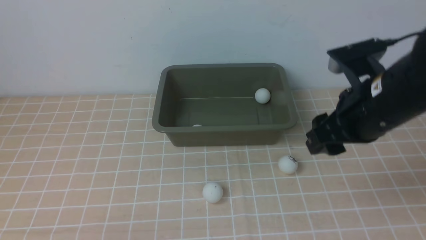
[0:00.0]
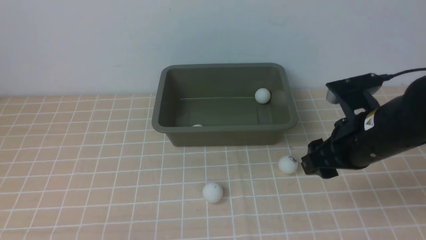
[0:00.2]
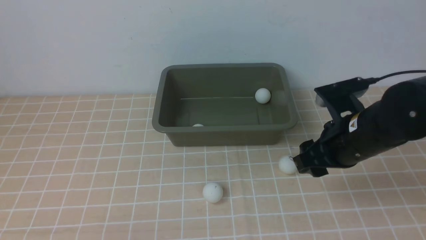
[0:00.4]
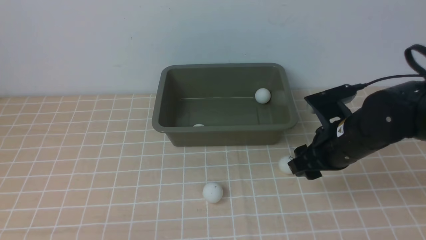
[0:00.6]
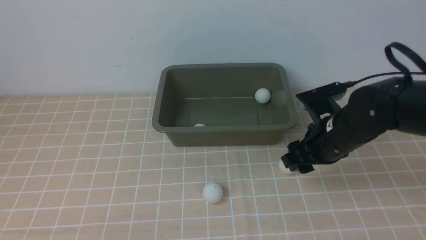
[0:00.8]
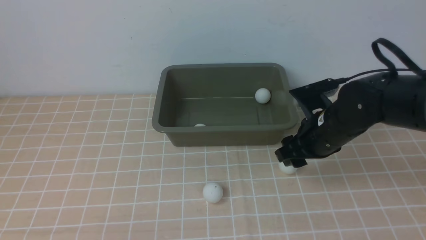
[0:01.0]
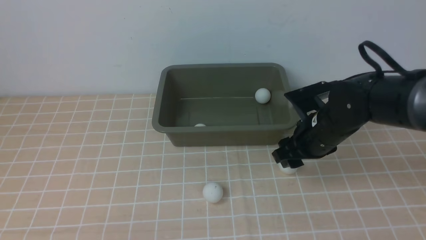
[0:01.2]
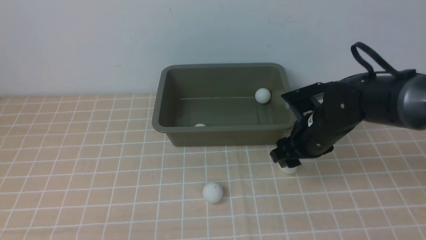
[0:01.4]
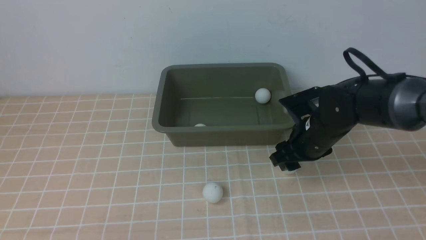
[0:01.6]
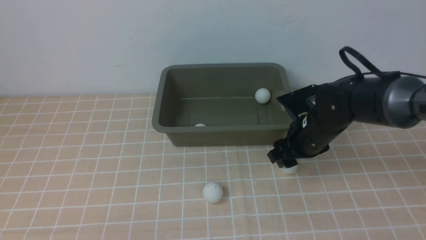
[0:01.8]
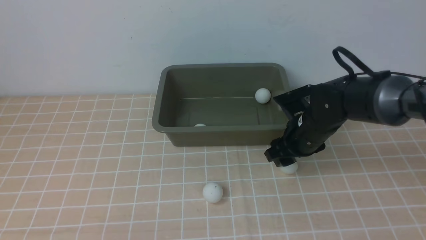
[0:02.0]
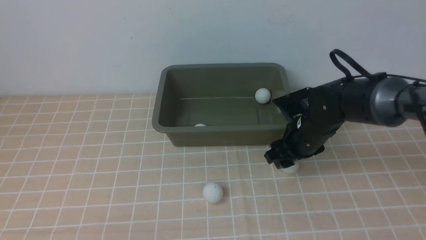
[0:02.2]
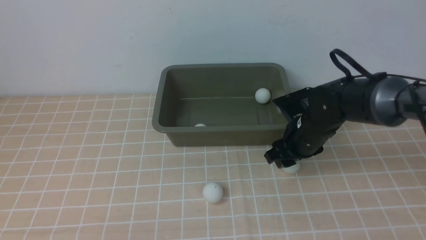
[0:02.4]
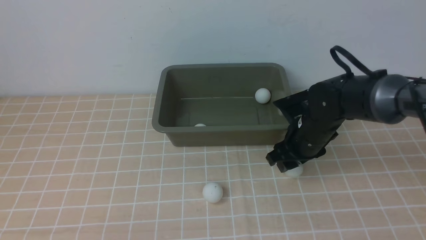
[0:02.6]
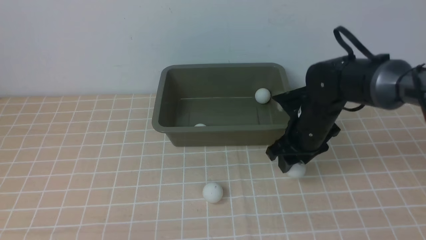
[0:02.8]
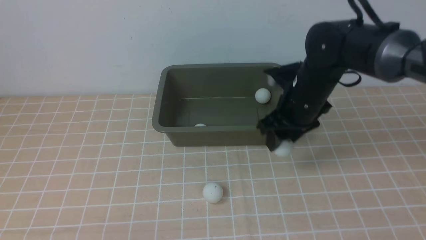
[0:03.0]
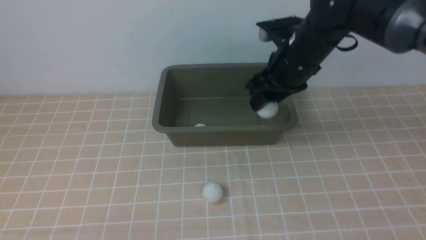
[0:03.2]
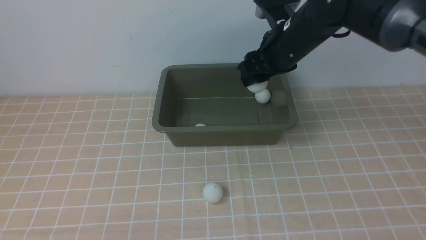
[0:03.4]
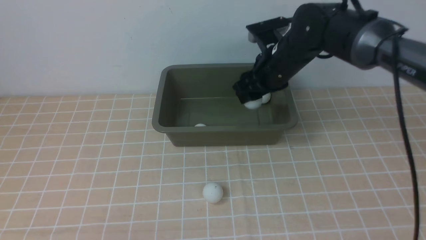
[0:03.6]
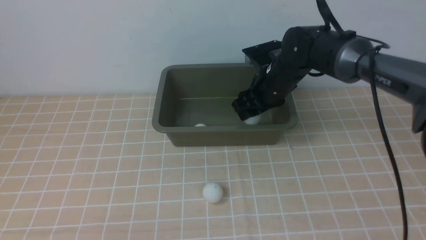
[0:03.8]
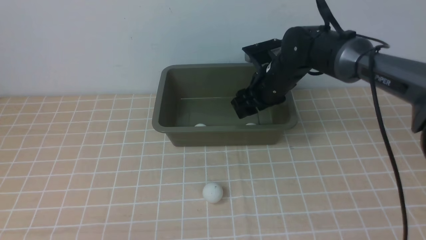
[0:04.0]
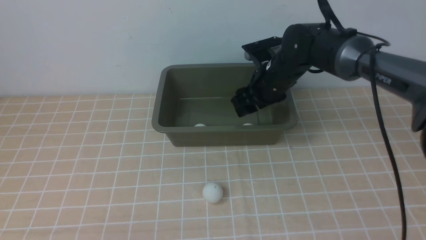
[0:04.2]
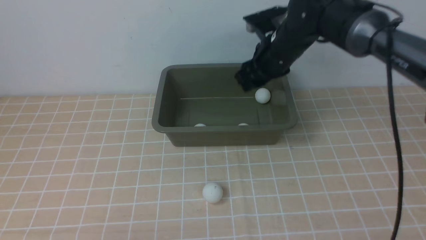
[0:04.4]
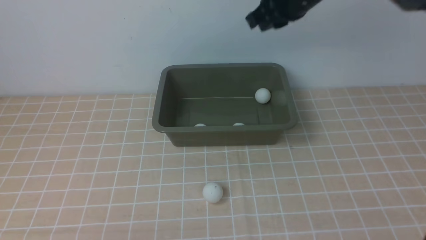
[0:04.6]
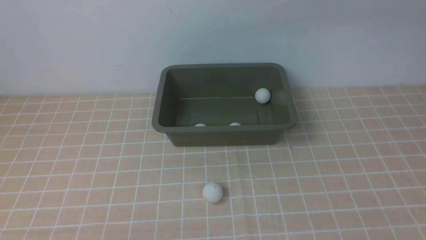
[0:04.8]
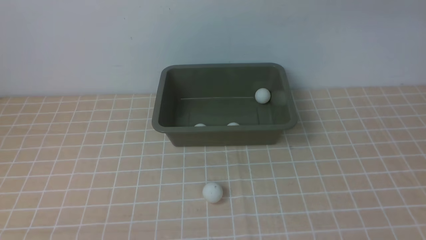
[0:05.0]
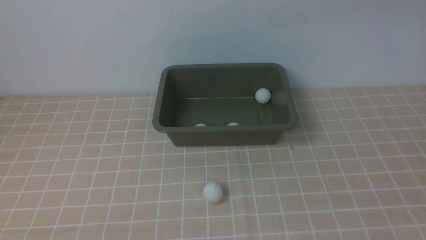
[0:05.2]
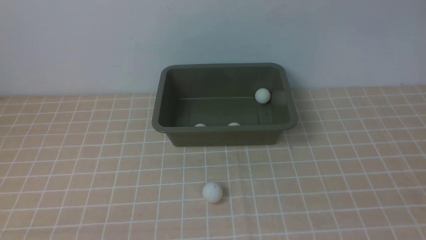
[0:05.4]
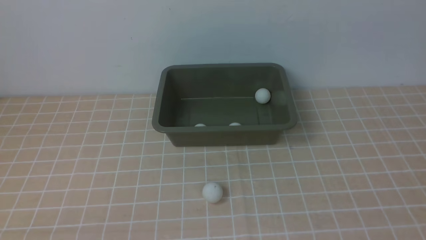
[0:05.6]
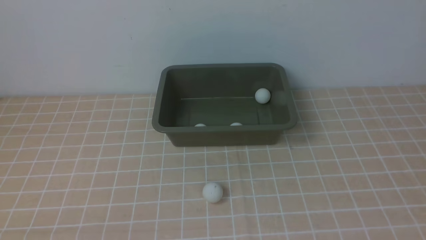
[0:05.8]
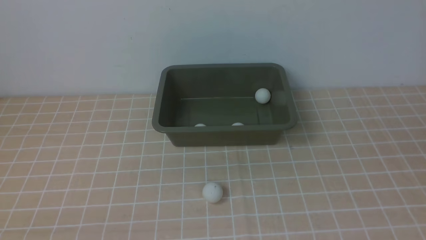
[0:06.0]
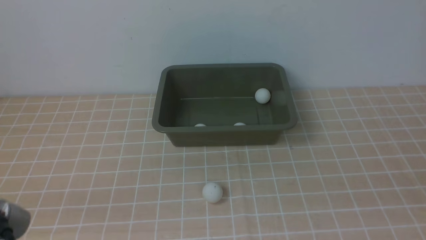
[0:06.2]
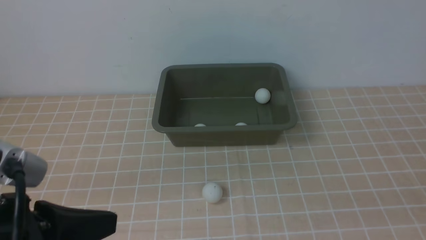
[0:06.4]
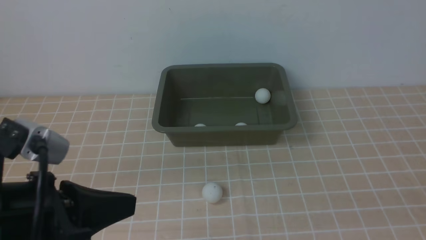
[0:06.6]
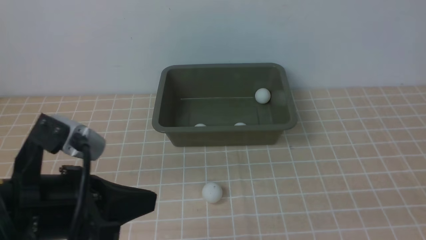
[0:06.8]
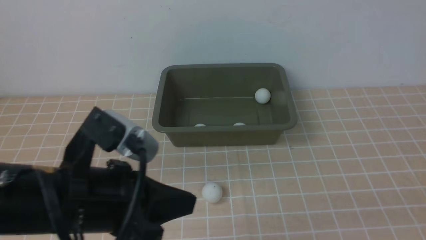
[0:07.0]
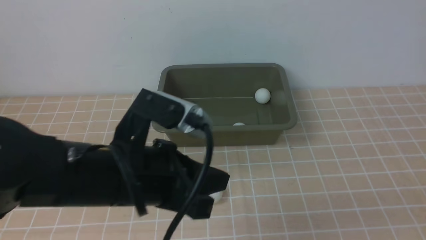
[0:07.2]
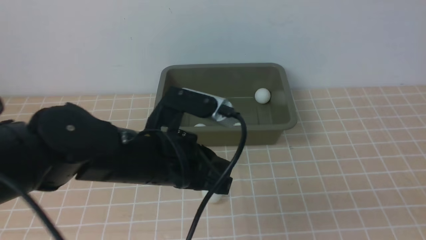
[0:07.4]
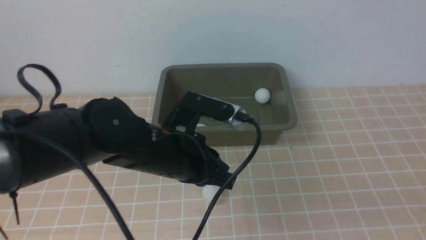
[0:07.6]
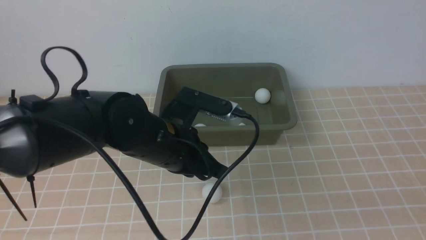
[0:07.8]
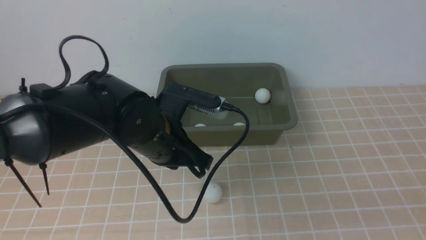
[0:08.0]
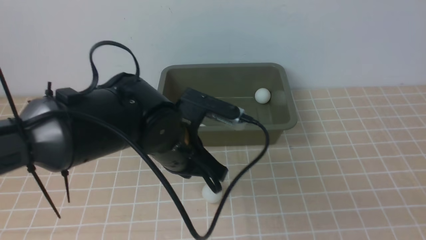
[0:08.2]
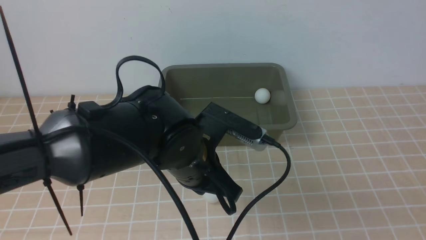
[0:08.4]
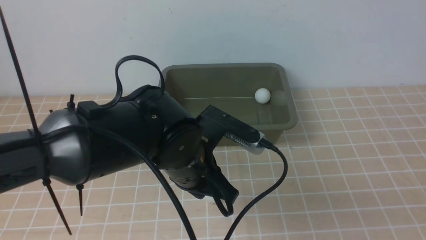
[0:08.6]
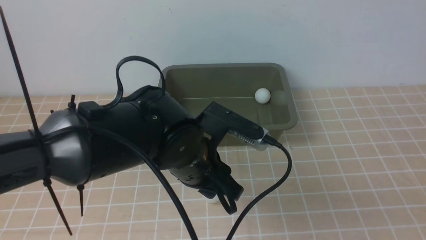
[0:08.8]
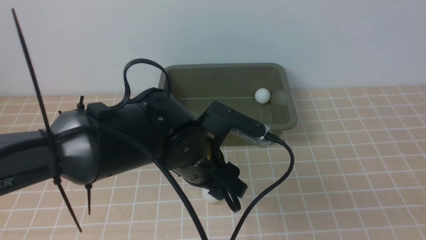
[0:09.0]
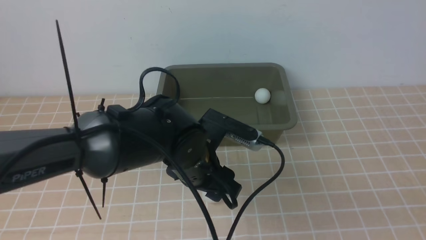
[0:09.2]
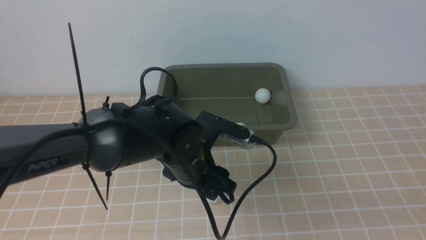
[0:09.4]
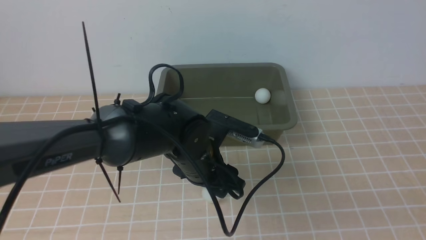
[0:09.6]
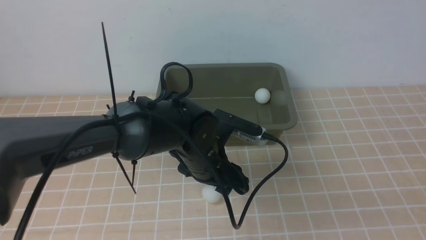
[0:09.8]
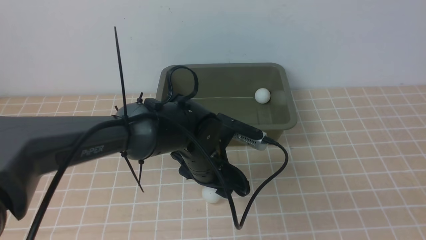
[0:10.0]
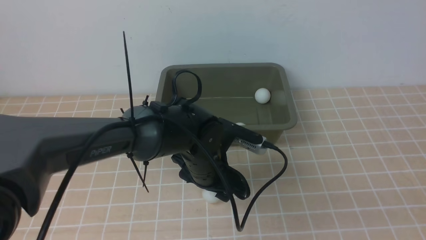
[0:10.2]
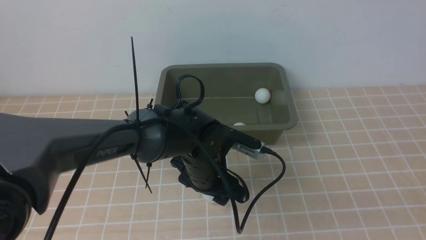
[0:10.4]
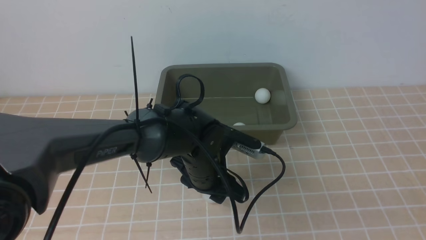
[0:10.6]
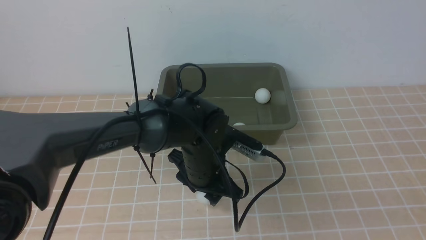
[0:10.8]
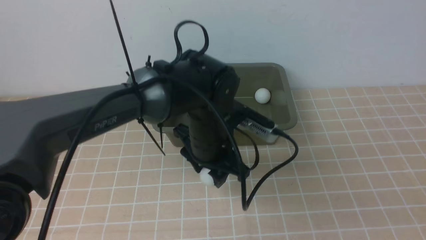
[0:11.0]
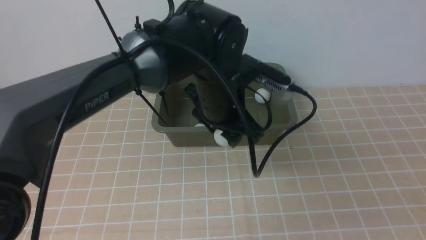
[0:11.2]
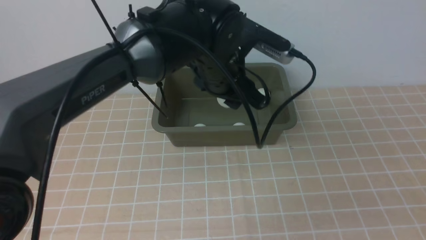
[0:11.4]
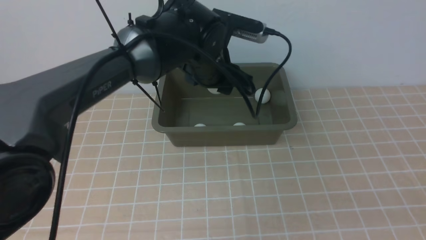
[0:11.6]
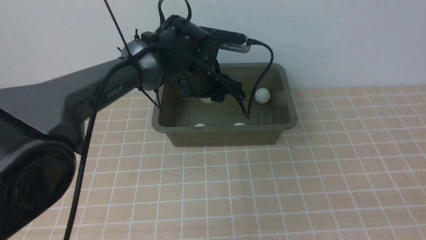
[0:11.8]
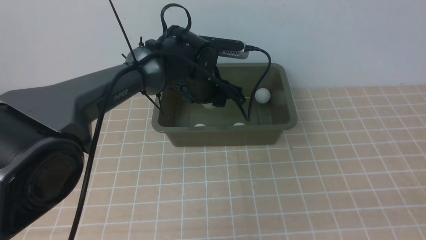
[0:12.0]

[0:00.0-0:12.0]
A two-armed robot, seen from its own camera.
Step, 0.0 to 2.8 s: use the right arm to clamp the table tennis ball closest to it.
Step, 3.2 to 4.6 s: use the right arm to put the table tennis ball into the box.
Step, 4.8 to 11.0 s: use the left arm to clamp the table tennis ball closest to it.
0.0 to 1.6 s: The right gripper moves downward and forward, some 15 cm.
1.6 to 3.0 s: The right gripper goes some 5 cm upward.
3.0 to 4.4 s: The right gripper moves forward and upward, some 10 cm.
4.4 to 6.0 s: The right gripper is displaced backward and to the right by some 40 cm, and closes its fingers; the left gripper is displaced upward by approximately 10 cm.
6.0 to 7.6 s: The left gripper moves forward and to the right, approximately 25 cm. Meanwhile the right gripper goes approximately 10 cm downward and backward.
7.6 to 9.0 s: The left gripper opens up.
9.0 to 10.4 s: The left gripper shifts roughly 5 cm downward.
10.4 to 12.0 s: The left gripper travels forward and upward by roughly 15 cm.

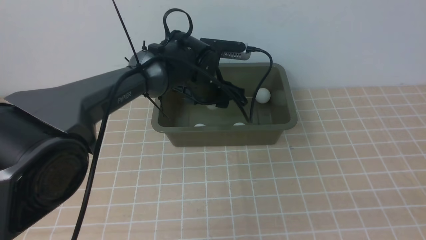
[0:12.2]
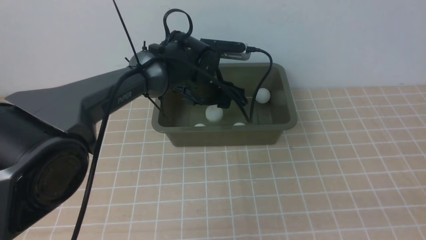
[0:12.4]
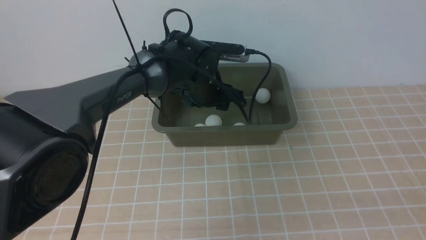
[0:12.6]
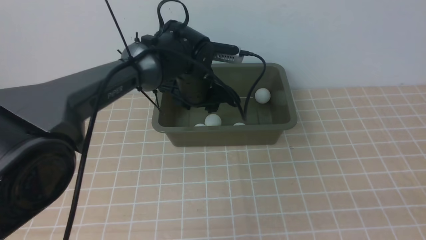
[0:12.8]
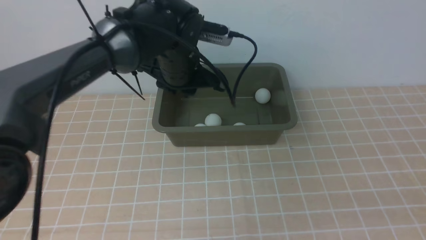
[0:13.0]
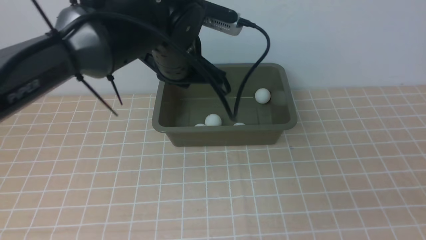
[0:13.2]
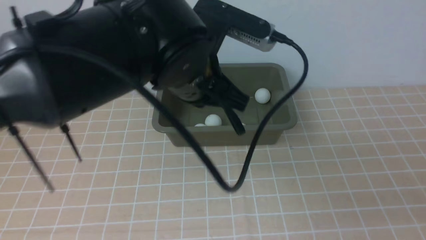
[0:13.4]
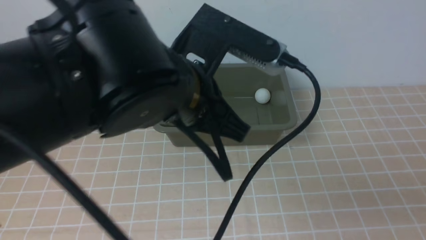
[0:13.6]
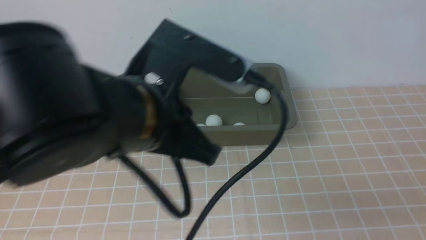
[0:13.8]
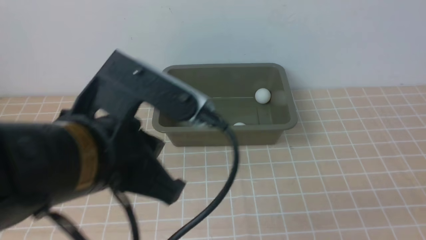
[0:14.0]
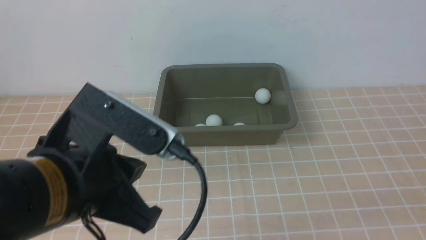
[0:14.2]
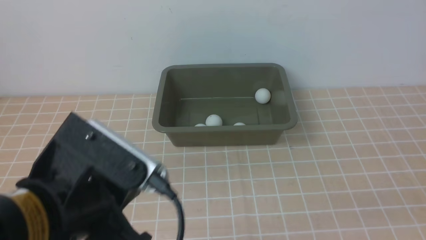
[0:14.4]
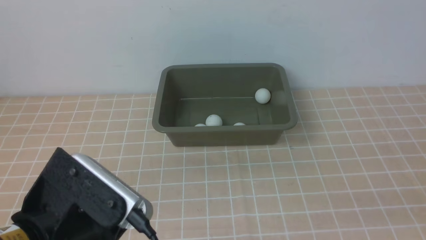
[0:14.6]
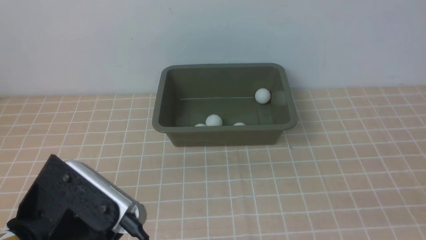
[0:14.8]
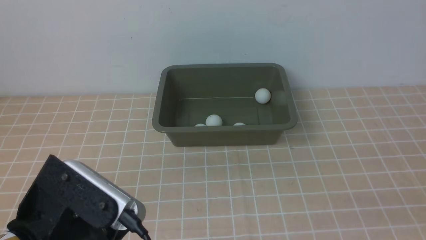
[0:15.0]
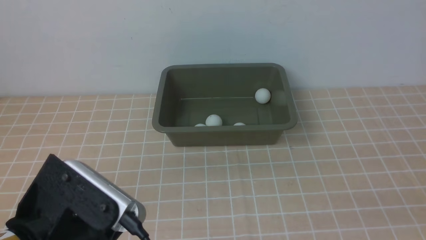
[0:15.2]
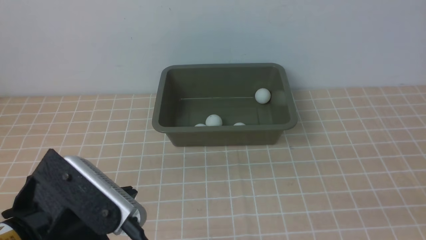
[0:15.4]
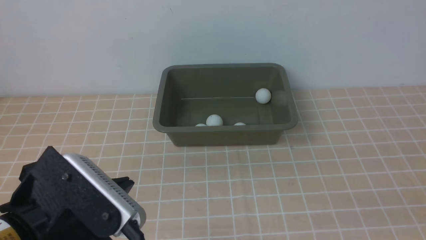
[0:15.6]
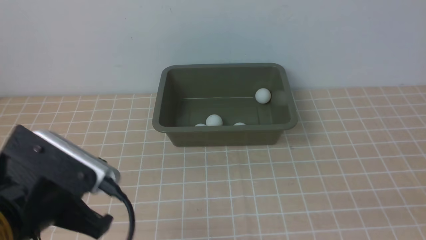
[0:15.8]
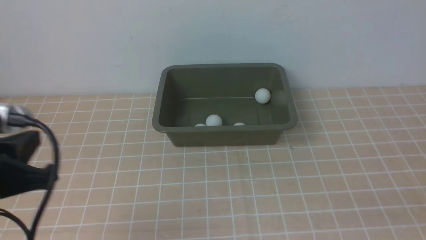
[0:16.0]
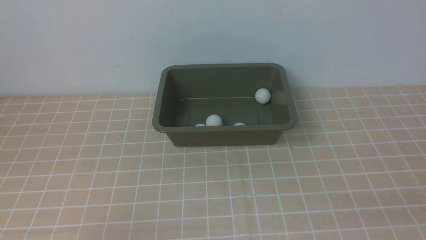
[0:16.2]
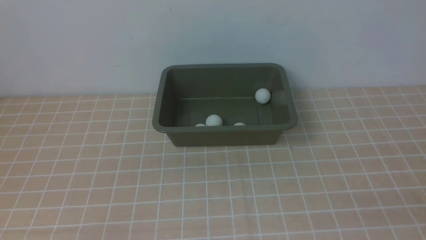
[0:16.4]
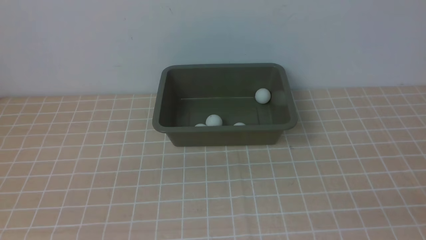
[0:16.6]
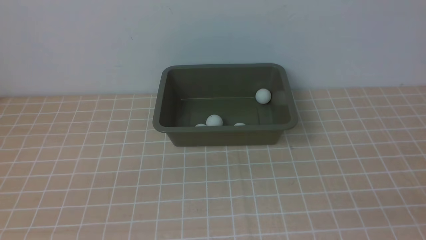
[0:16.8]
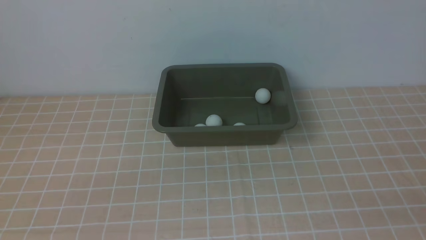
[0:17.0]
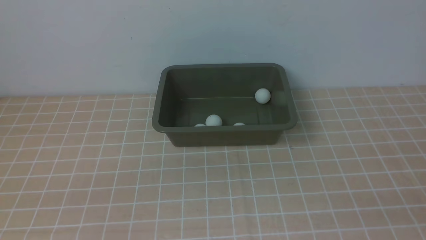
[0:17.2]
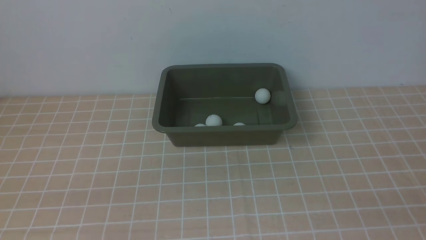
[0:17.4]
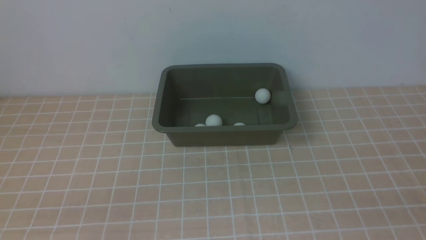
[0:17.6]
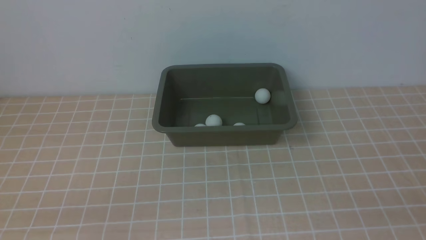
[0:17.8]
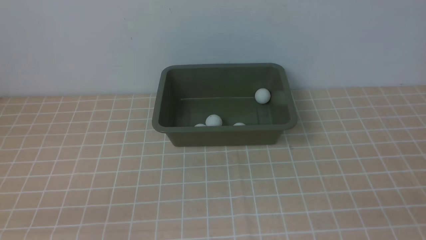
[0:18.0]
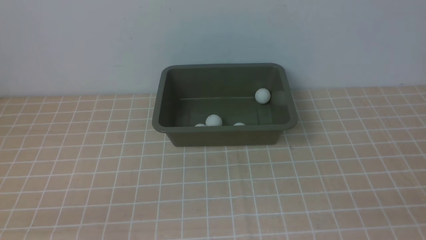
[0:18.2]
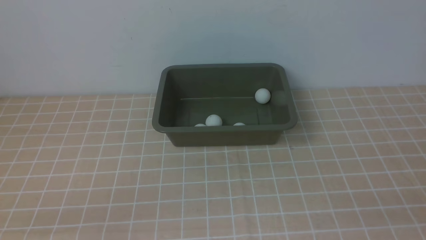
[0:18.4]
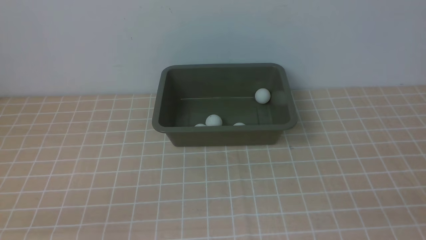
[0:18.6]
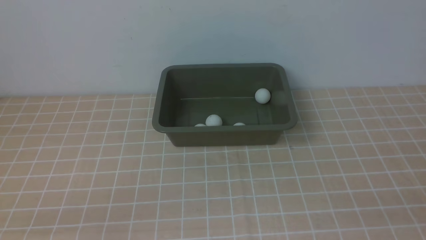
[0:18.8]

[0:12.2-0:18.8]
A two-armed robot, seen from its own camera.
12.2 to 13.8 s: The left gripper shifts about 30 cm backward and upward, and closes its fingers. Meanwhile the right gripper changes place by roughly 5 cm.
13.8 to 15.4 s: The left gripper is displaced to the left, downward and backward by approximately 15 cm.
15.4 to 17.2 s: The left gripper shifts some 15 cm to the left and backward.
